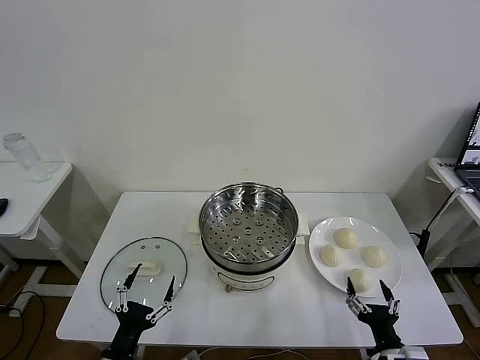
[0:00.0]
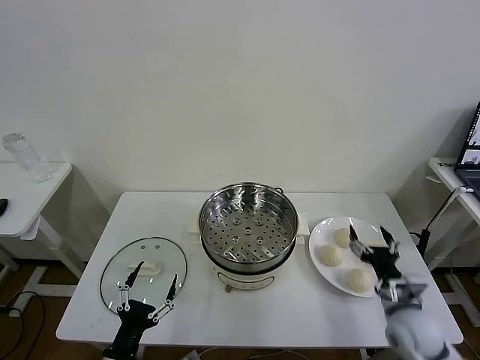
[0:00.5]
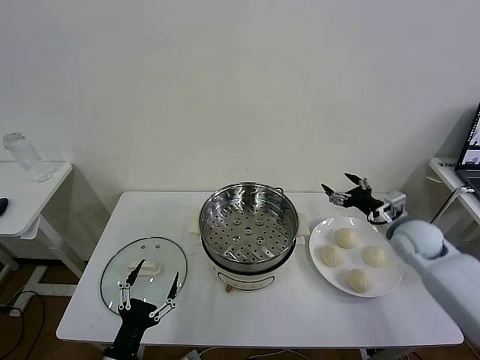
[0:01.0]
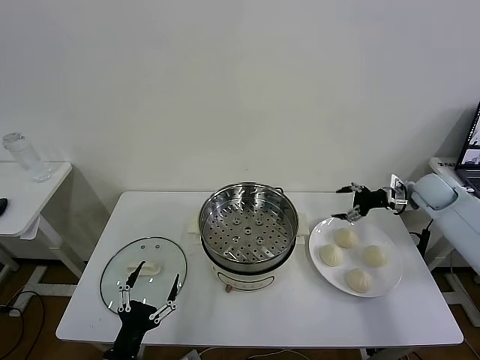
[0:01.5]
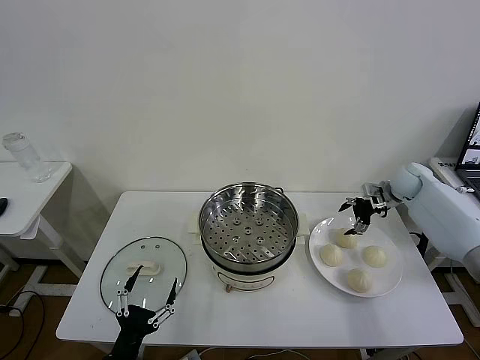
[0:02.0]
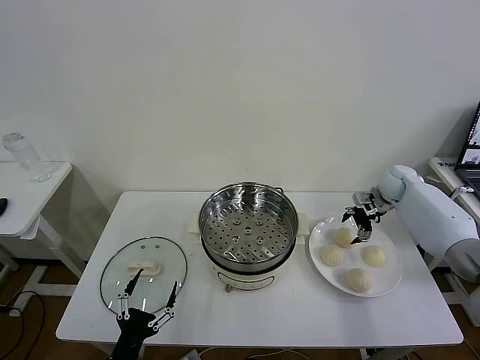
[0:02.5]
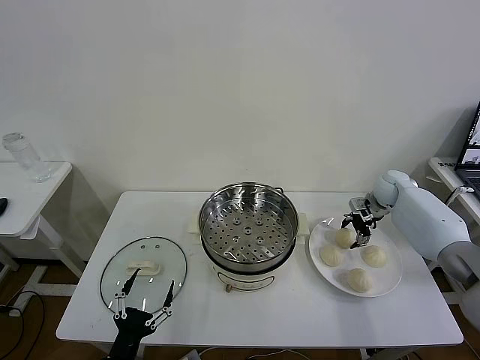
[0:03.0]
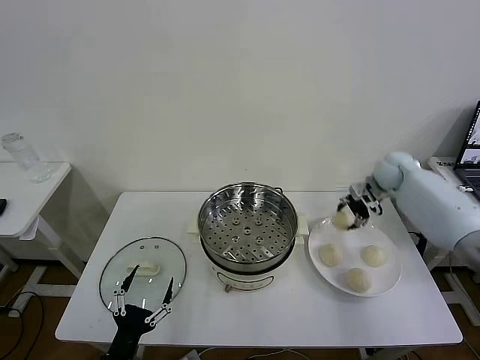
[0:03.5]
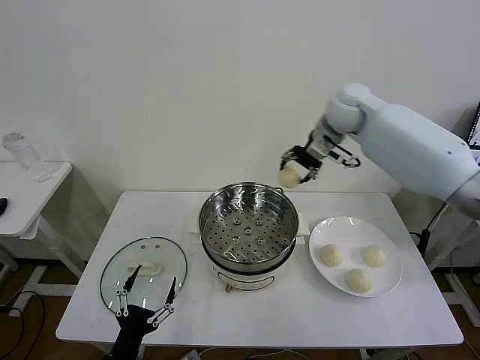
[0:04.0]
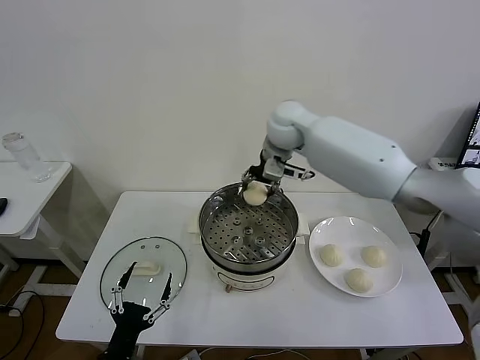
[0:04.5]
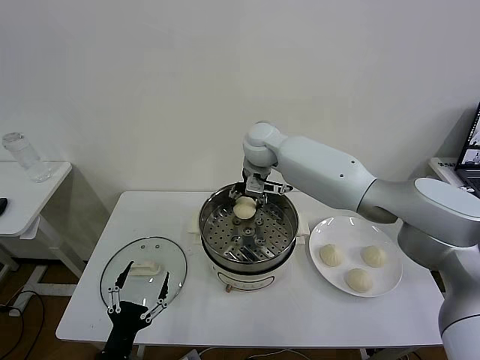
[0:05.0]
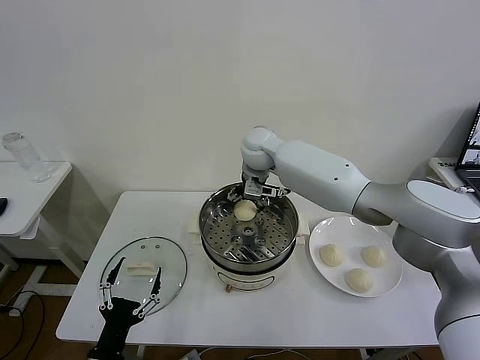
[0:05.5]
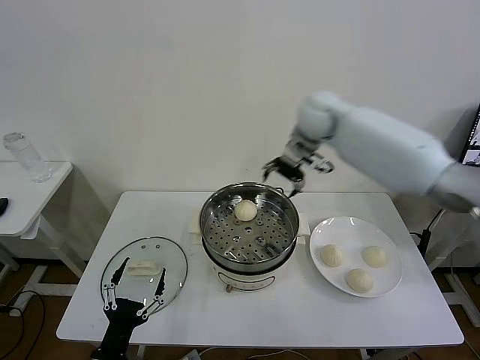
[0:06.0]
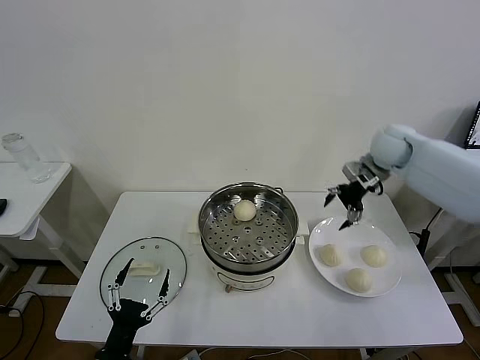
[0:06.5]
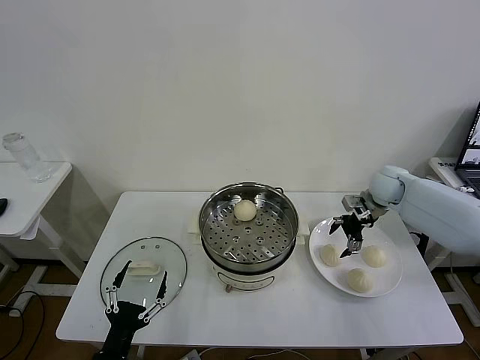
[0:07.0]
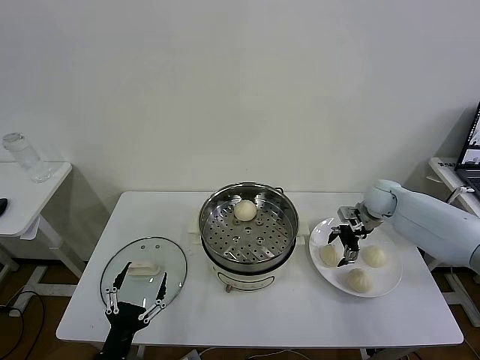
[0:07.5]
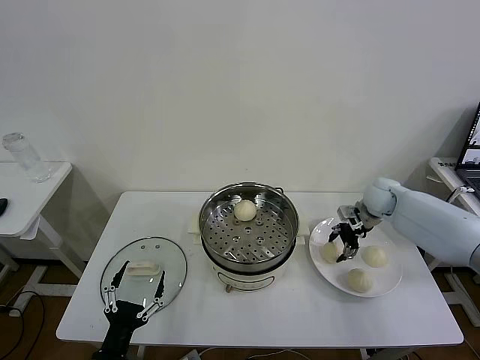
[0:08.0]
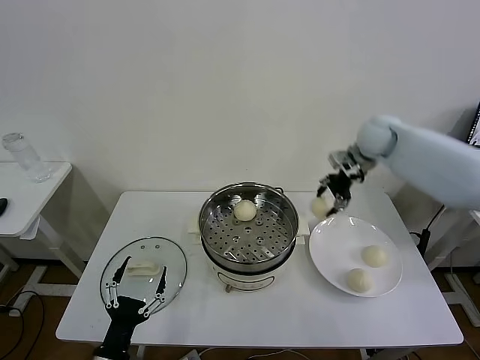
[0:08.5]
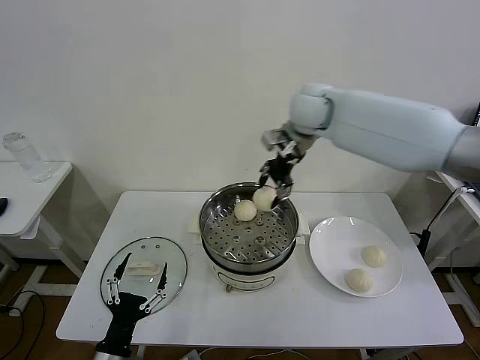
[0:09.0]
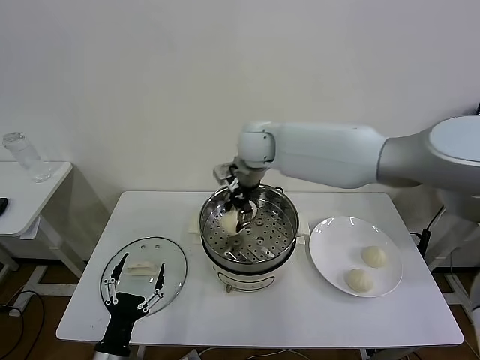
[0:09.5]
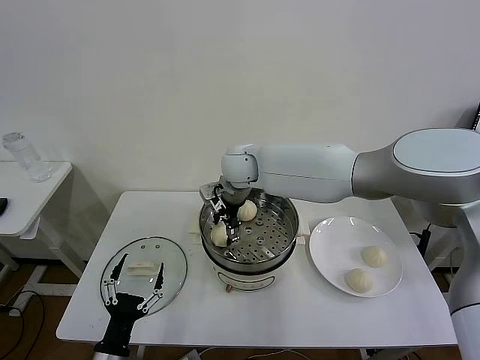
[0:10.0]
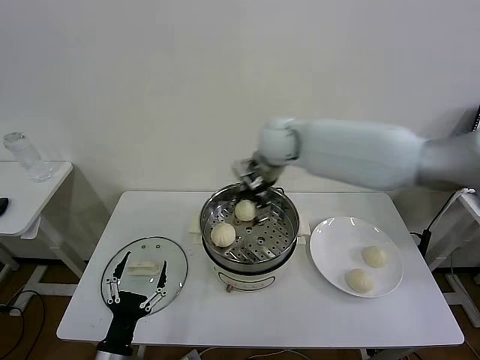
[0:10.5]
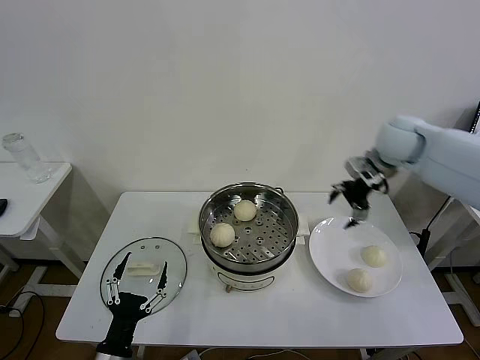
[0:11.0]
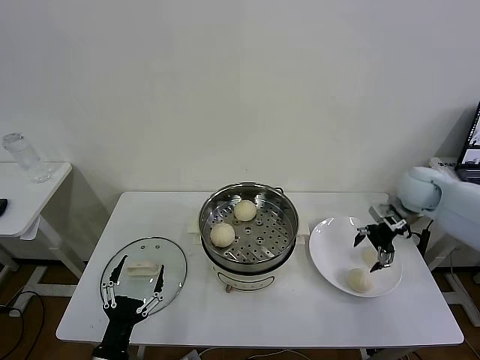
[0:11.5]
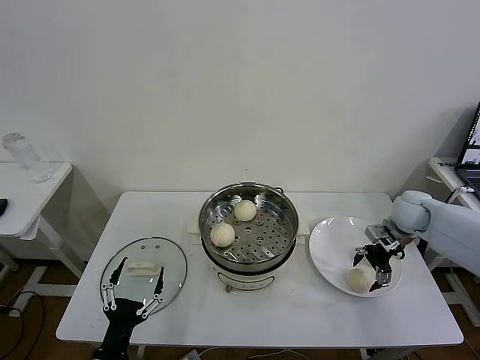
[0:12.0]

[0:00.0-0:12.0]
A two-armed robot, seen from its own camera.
Task of the whole recording: take steamed baozi put them in steamer then cover it.
Step, 0:00.0 to 0:03.0: Grasp the baozi in the plate with right gripper.
Step, 0:03.5 to 0:05.5: Place the baozi on the steamer with right gripper.
Step, 0:06.0 to 0:07.5: Grasp the baozi in the plate with right gripper.
Step, 0:08.0 to 0:10.5: Place the baozi on the steamer with right gripper.
0:02.0 to 0:04.0: The right gripper heads to the left and upward, covering roughly 30 cm, and closes its fingers.
0:04.0 to 0:06.0: The right gripper reaches approximately 15 cm to the left, then returns, and opens.
0:06.0 to 0:08.0: The right gripper moves downward and to the right, about 25 cm, and closes up.
0:08.0 to 0:10.0: The right gripper heads to the left, covering roughly 35 cm, and opens.
0:10.0 to 0:12.0: The right gripper moves to the right, some 40 cm.

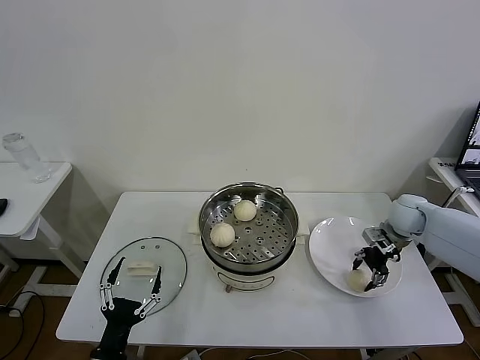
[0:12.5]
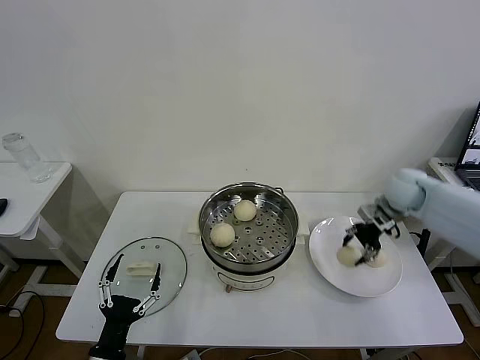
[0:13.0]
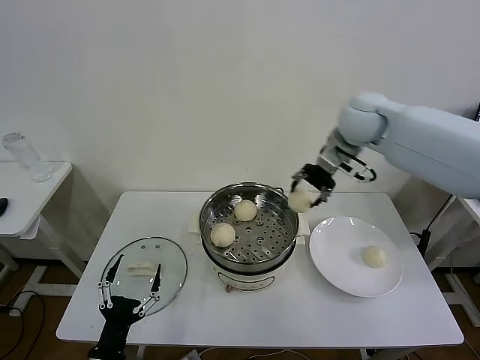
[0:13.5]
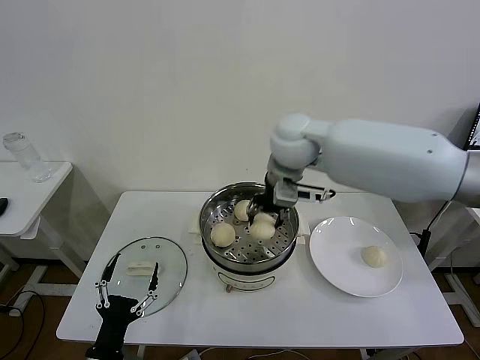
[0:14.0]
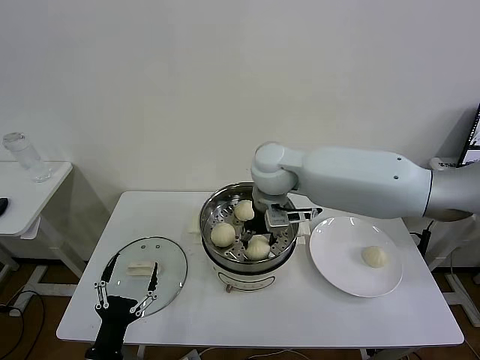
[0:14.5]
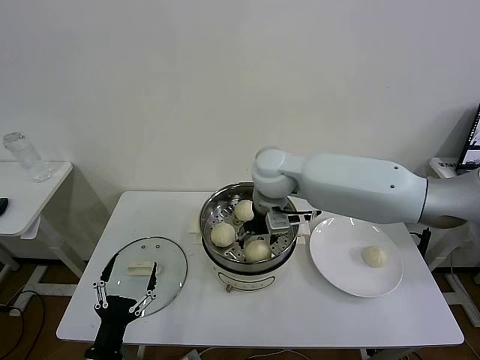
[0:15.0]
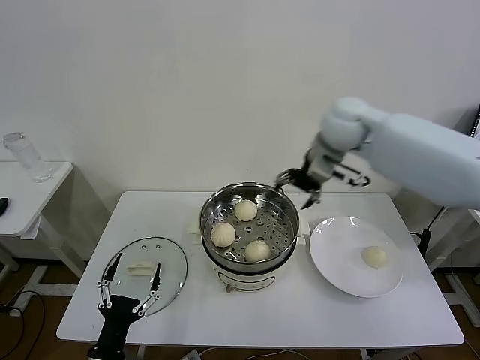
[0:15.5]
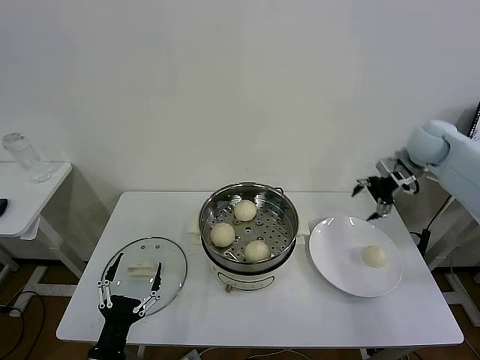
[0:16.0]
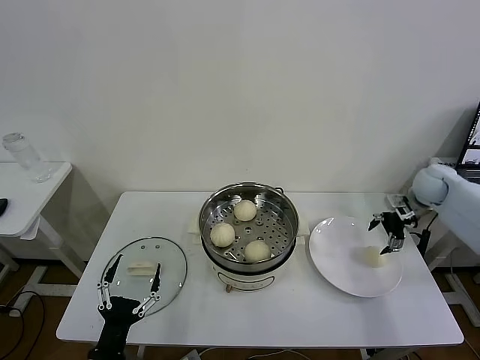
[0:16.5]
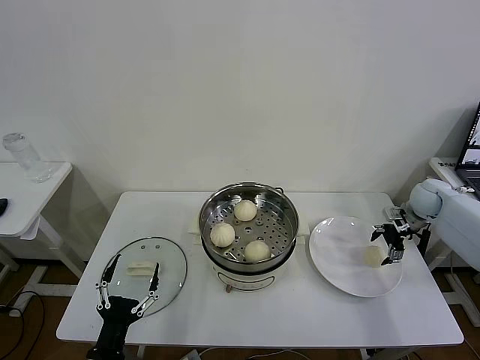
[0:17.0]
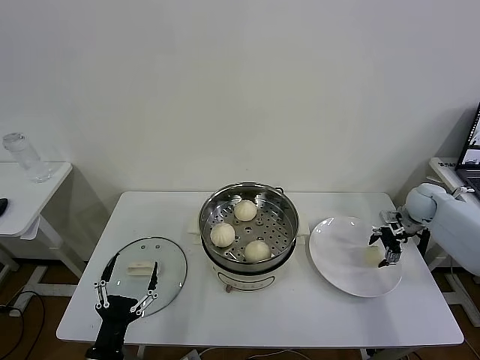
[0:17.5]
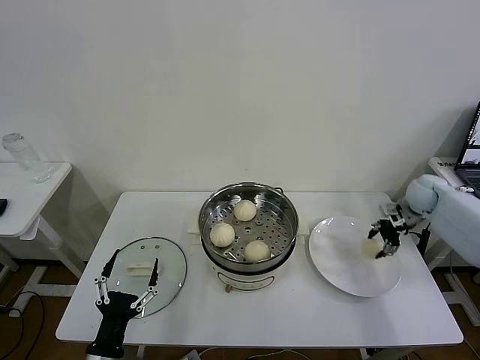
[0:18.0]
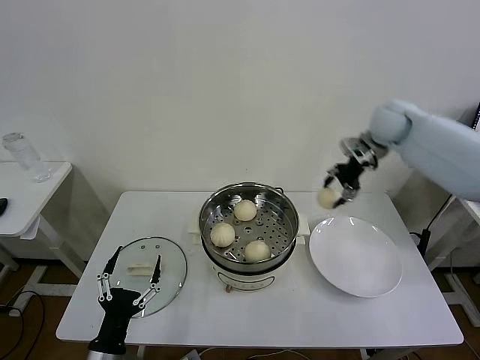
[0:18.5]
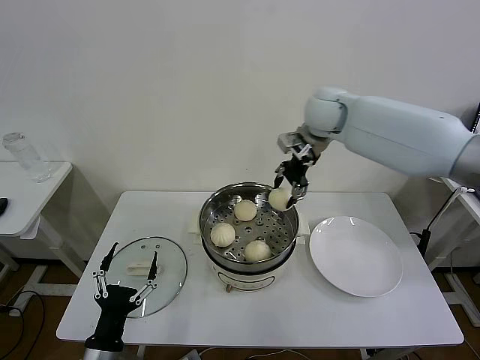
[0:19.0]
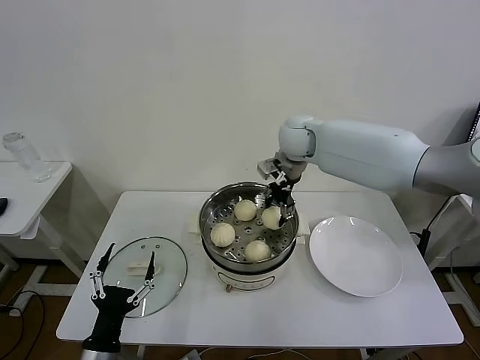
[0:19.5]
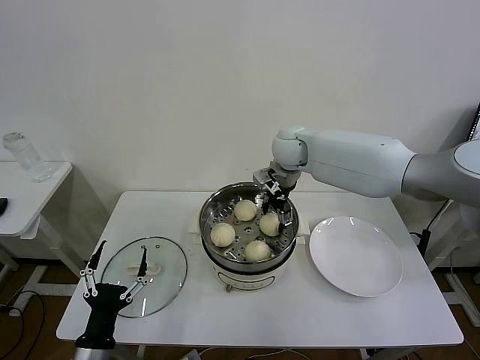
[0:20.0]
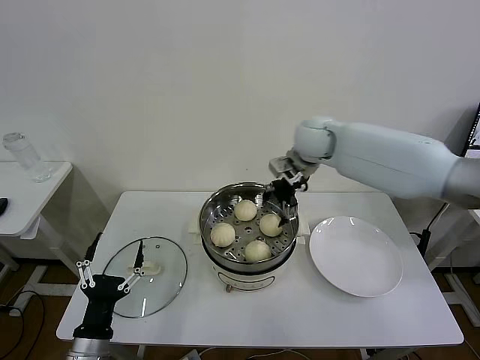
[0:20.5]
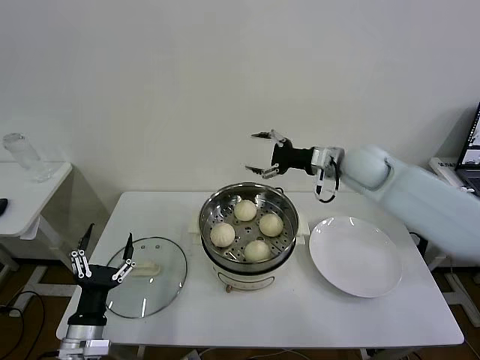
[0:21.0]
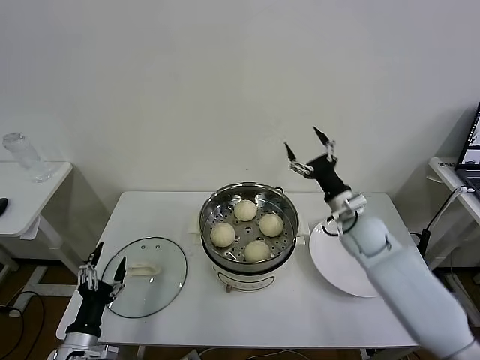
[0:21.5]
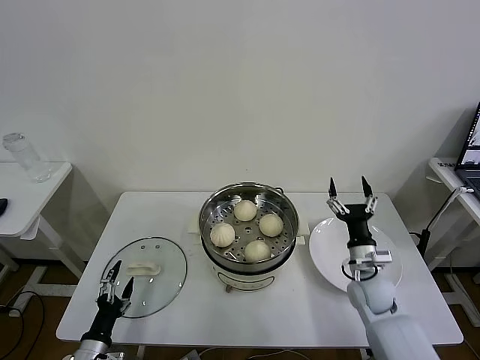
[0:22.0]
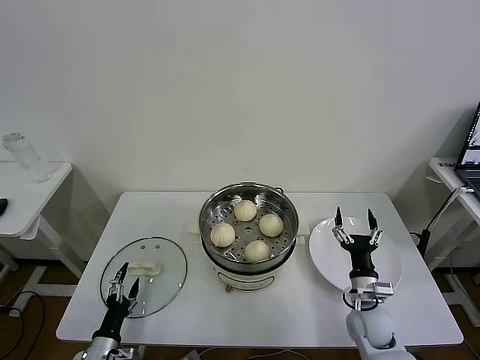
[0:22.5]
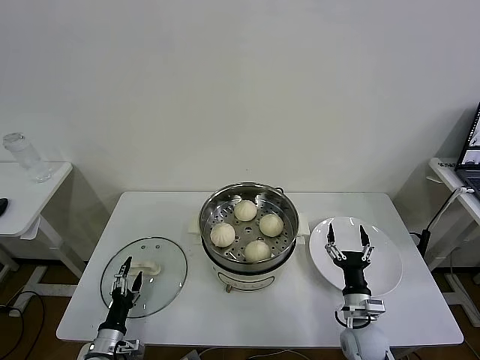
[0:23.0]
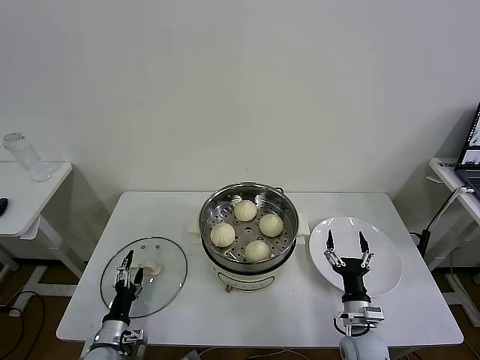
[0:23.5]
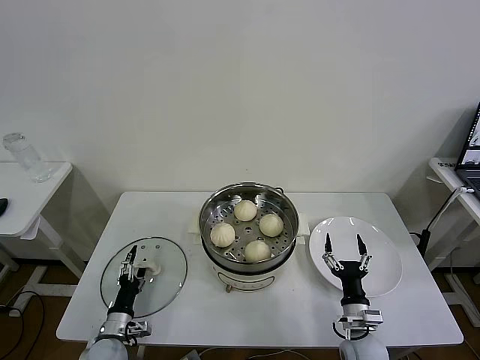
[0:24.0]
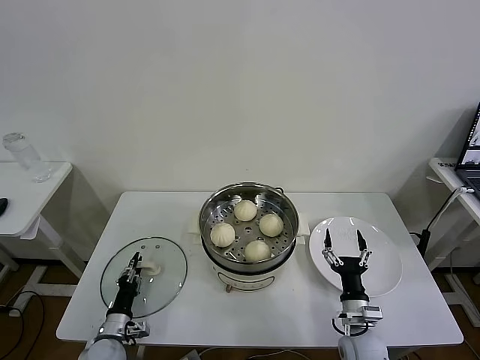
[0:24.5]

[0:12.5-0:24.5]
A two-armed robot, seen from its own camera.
Task of the whole recording: take steamed baozi put them in steamer then cover it.
Step, 0:13.0 to 0:15.0: Place the baozi on the steamer with right gripper.
Step, 0:15.5 to 0:17.5: Grasp the baozi in the plate with right gripper.
Step, 0:18.0 to 0:20.5: Place the baozi on the steamer with right gripper.
0:12.5 to 0:14.5: The right gripper moves to the left and upward, approximately 40 cm.
0:14.5 to 0:16.5: The right gripper heads to the right, covering some 40 cm, and opens its fingers.
0:16.5 to 0:18.5: The right gripper is displaced to the left and upward by about 20 cm, and closes.
0:18.5 to 0:20.5: The right gripper is displaced to the left by roughly 15 cm, and opens.
0:20.5 to 0:22.5: The left gripper travels downward and to the left by approximately 15 cm, while the right gripper is displaced downward, backward and to the right by about 50 cm.
0:22.5 to 0:24.5: The left gripper travels forward by some 5 cm, and closes its fingers; the right gripper changes place by roughly 5 cm.

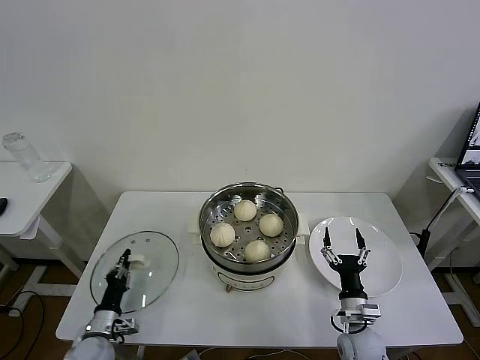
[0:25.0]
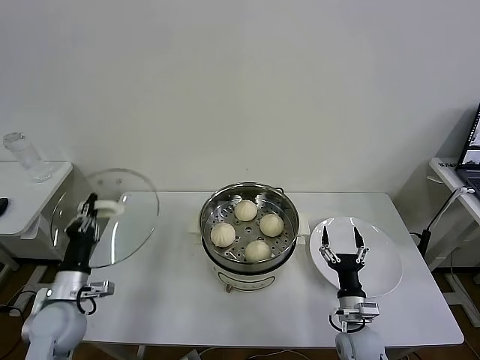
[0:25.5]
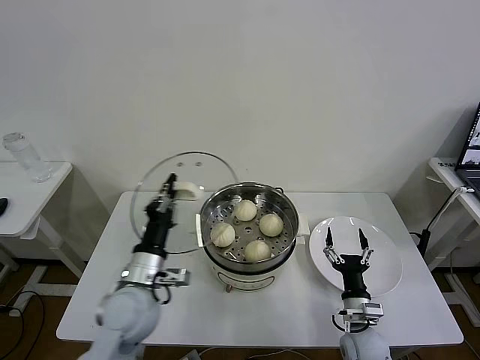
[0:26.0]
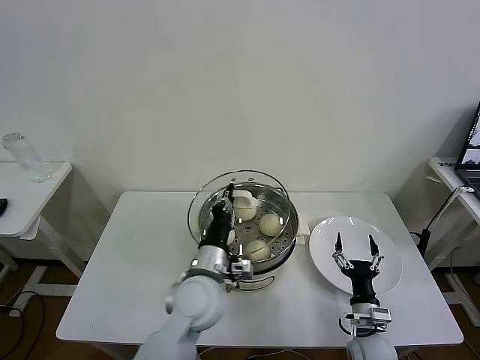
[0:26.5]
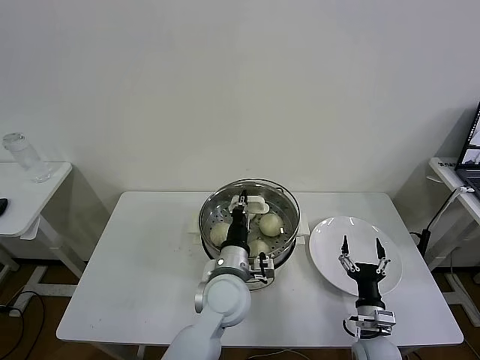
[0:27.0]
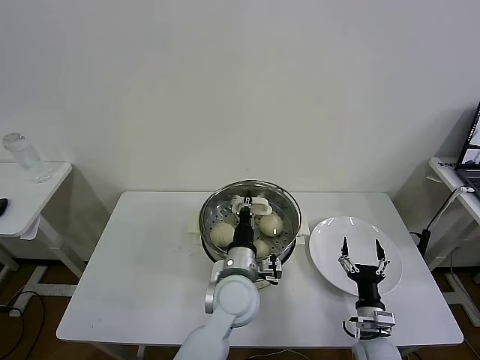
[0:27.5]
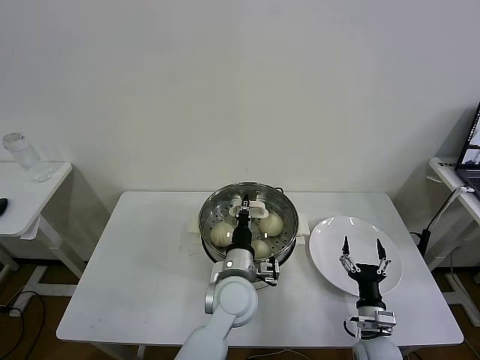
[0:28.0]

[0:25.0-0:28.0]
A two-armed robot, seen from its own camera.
Task of the whole recording: take steamed baozi put them in steamer then cover it.
0:25.0 to 0:26.5: The left gripper moves to the right and upward, about 35 cm.
0:26.5 to 0:28.0: The left gripper moves to the right, approximately 10 cm.
